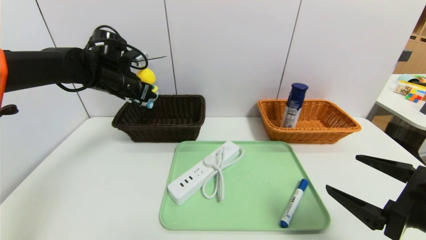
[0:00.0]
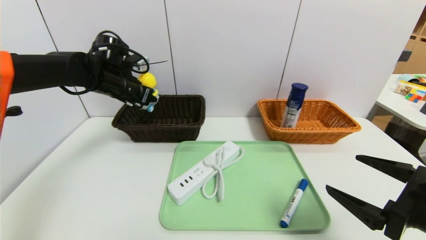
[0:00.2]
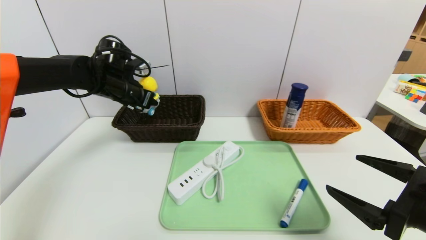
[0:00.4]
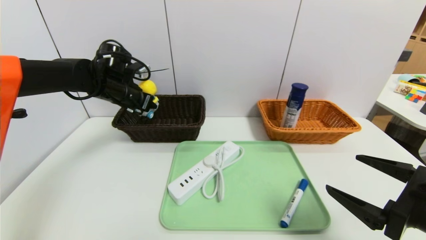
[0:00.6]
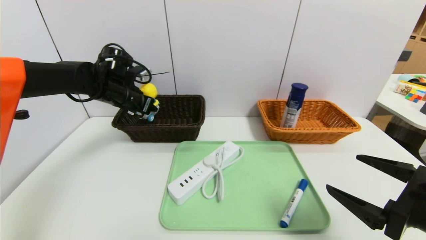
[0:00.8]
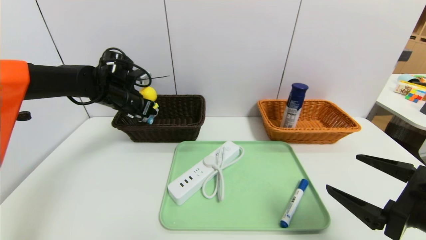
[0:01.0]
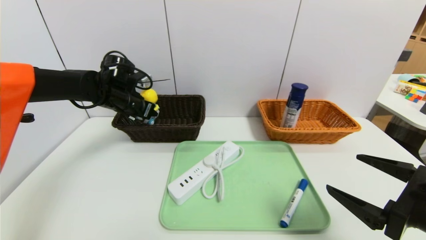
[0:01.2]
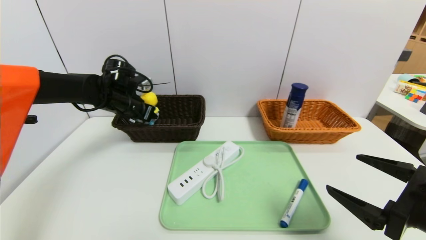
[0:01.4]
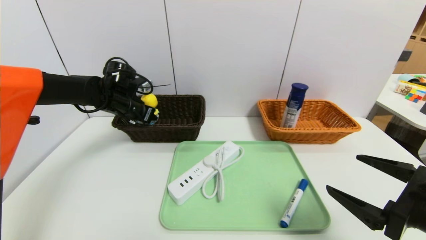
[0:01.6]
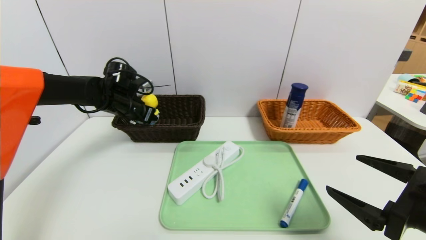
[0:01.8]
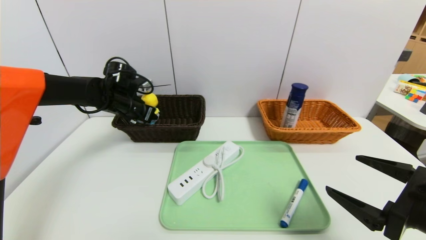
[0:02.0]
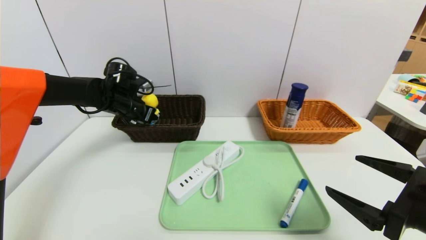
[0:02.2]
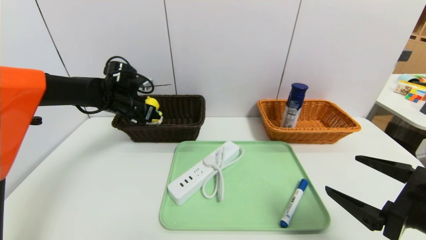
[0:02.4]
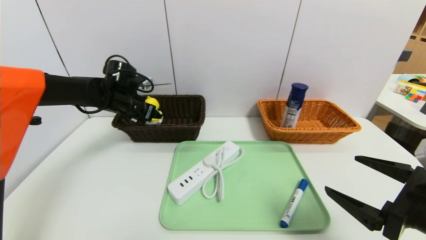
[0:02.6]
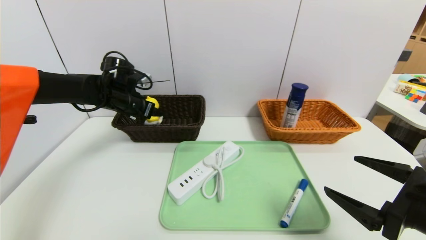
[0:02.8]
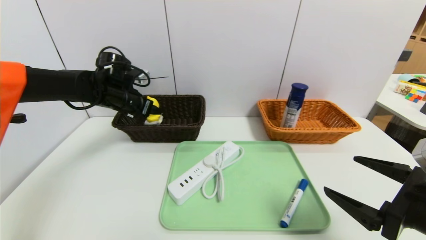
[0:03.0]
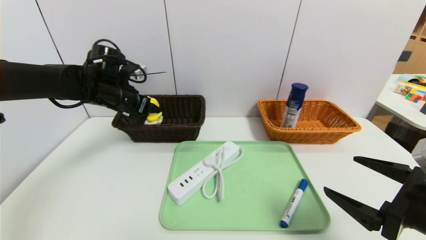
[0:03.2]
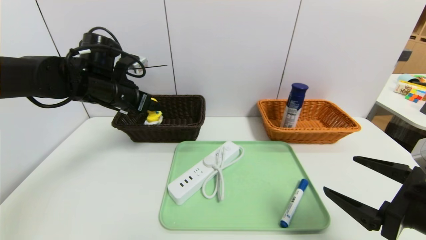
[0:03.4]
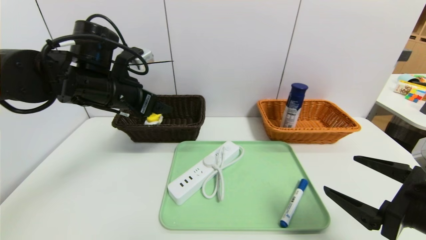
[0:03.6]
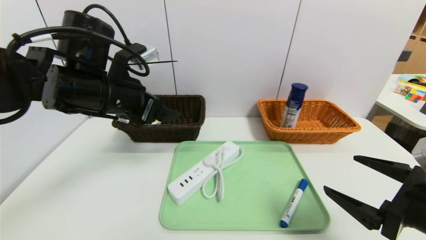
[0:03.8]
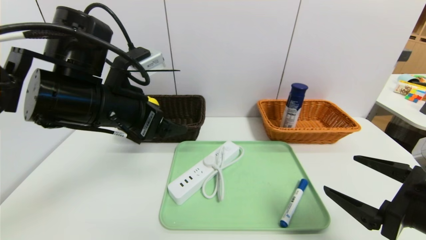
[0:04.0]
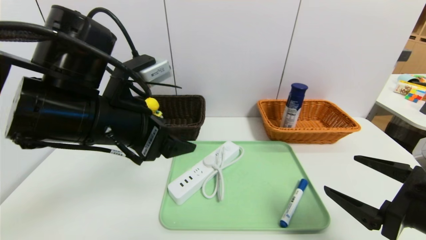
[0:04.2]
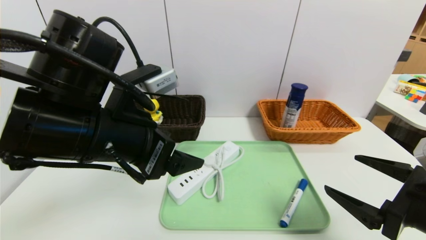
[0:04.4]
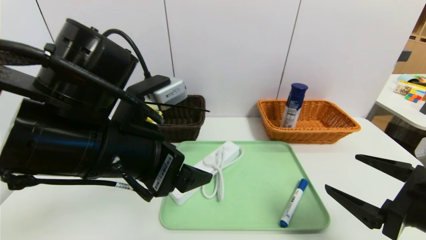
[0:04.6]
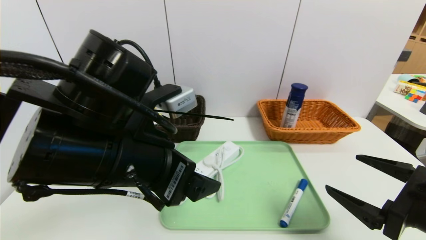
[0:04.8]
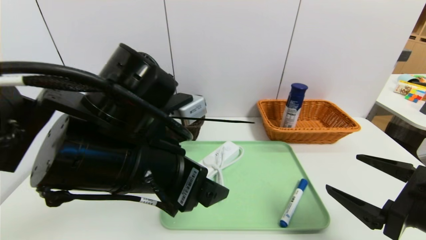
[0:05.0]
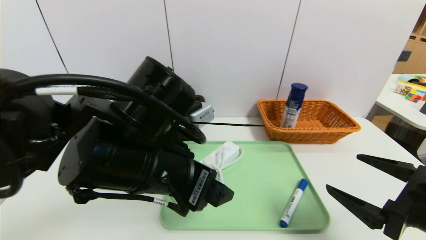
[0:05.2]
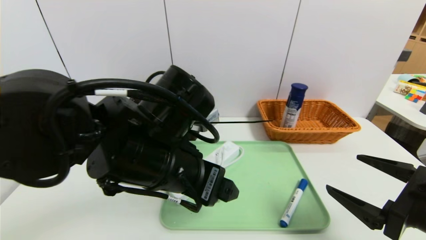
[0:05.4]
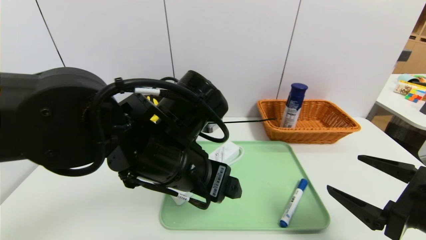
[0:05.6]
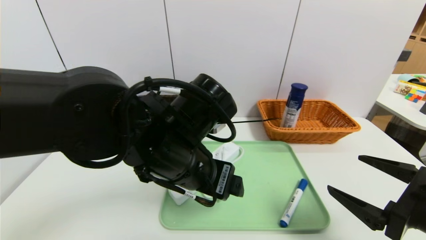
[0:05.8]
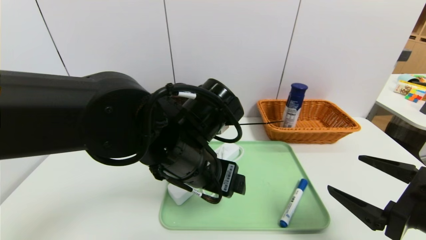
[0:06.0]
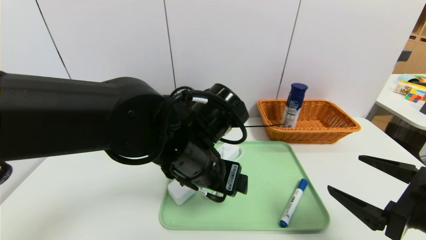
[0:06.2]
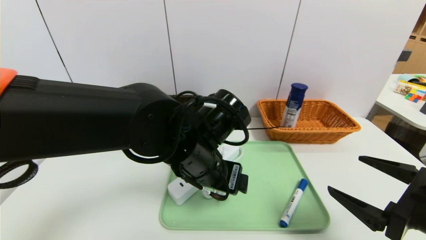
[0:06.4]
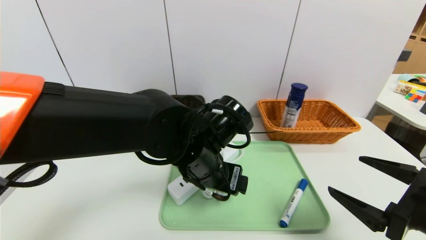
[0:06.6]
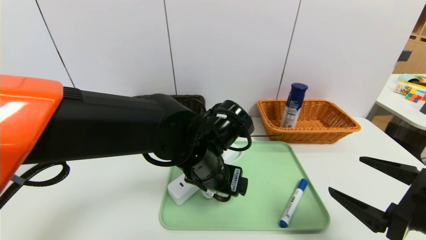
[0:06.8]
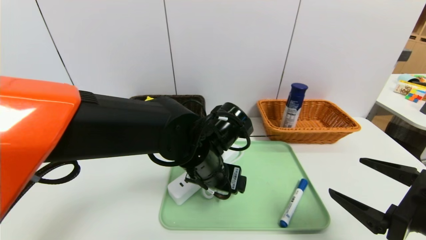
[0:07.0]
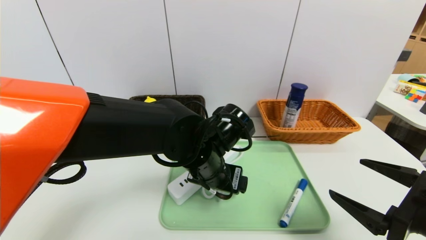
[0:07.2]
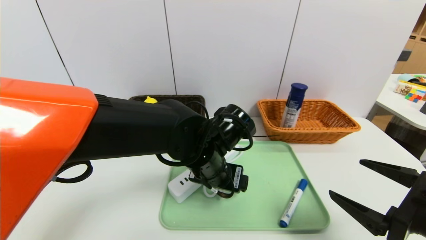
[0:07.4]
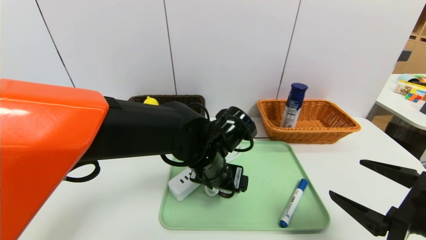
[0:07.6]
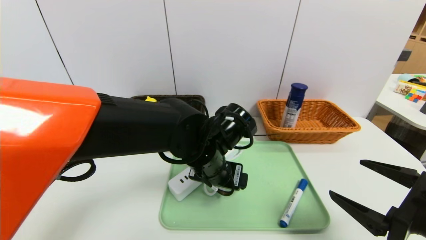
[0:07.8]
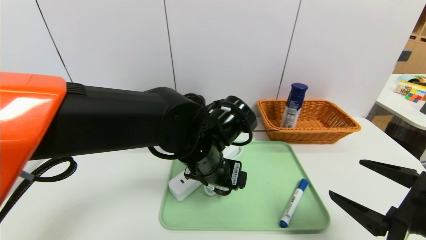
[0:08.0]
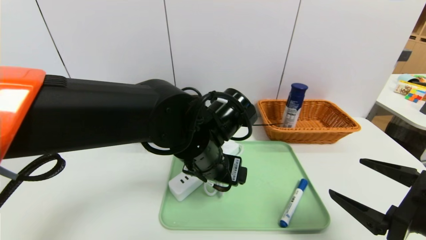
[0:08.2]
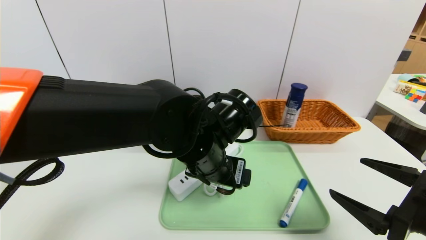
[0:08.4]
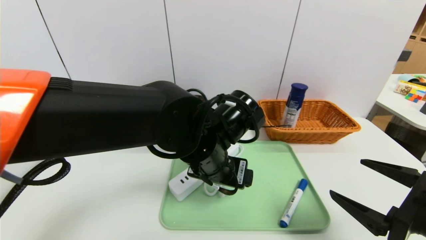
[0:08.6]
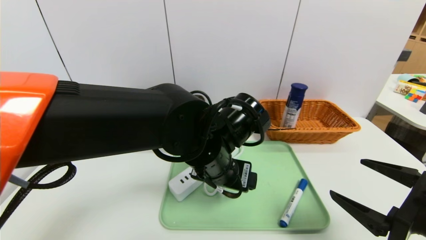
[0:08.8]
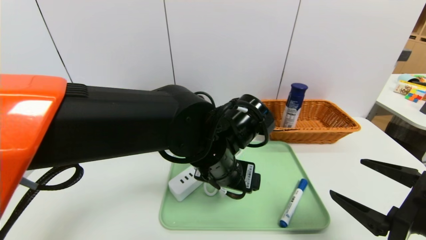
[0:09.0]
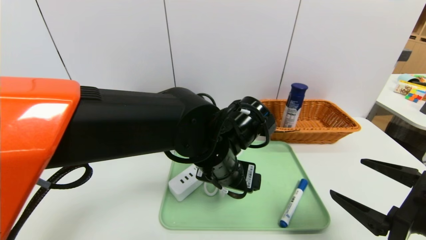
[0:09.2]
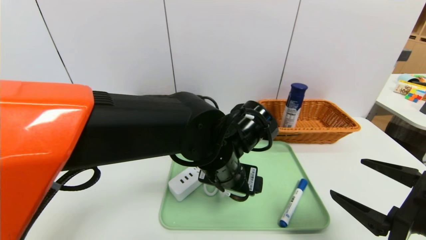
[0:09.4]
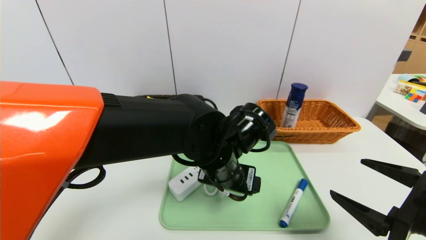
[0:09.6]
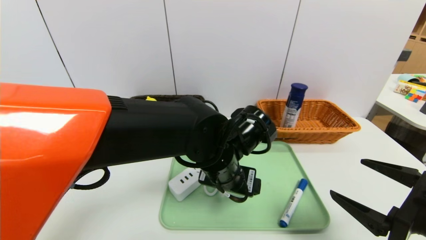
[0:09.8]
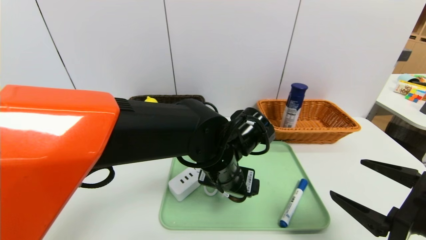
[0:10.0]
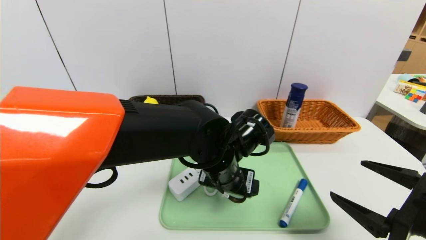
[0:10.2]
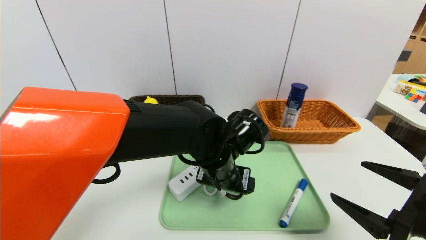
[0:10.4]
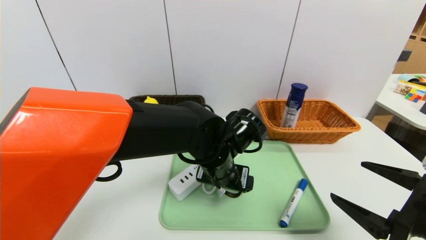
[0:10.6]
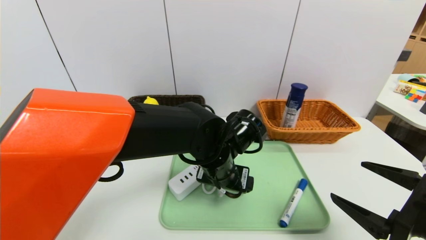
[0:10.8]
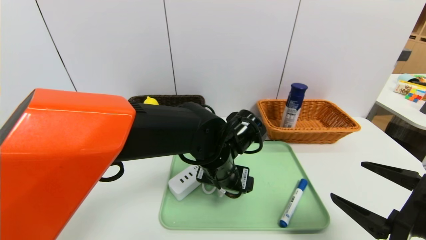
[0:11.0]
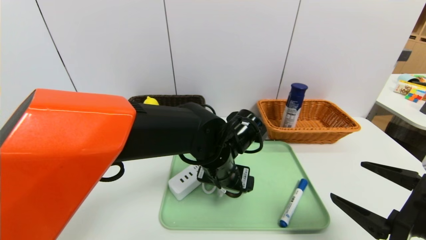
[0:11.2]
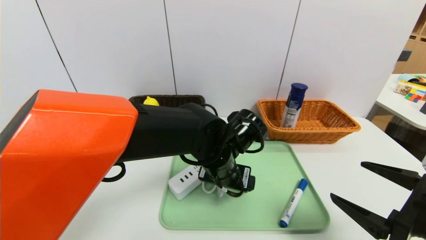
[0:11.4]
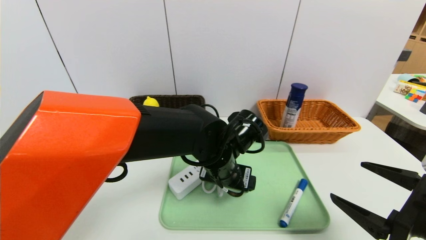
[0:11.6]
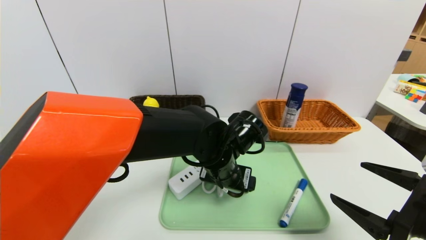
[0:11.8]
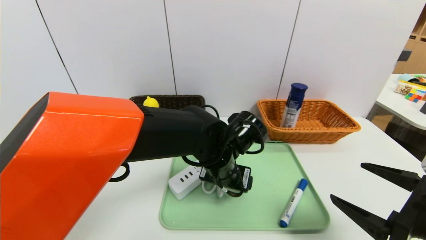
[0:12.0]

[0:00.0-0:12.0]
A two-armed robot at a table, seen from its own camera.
Task of the whole recording: place the food in the right basket with the right gripper, and place the non food items in the left basket with the left gripper.
Step, 0:00.0 to 0:02.2: Grasp the duck toys and put it in the left basket.
0:00.0 to 0:01.6: The left gripper shifts roughly 5 cm downward.
0:01.6 to 0:03.0: The left gripper opens up.
0:03.0 to 0:04.4: The left gripper is displaced backward and to the right by roughly 25 cm.
0:04.4 to 0:06.0: The left gripper shifts about 10 cm to the right and downward.
0:06.0 to 0:07.6: The left gripper shifts roughly 5 cm downward.
0:07.6 to 0:09.0: There are only small adjustments of the grippers.
0:10.4 to 0:12.0: The grippers stay close to where they were, moving slightly.

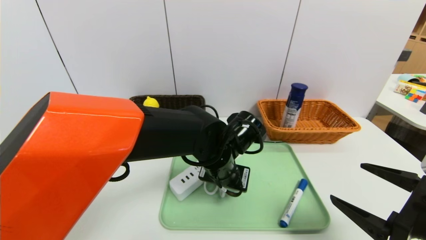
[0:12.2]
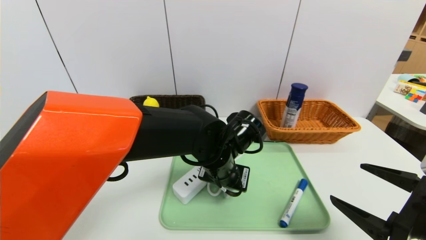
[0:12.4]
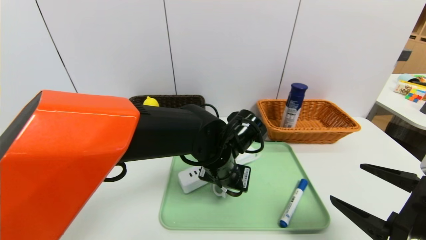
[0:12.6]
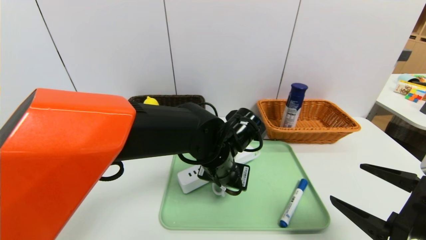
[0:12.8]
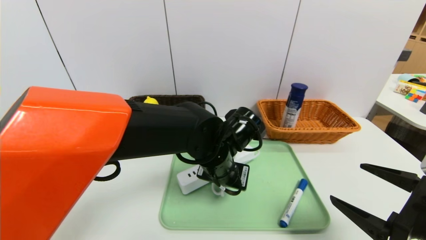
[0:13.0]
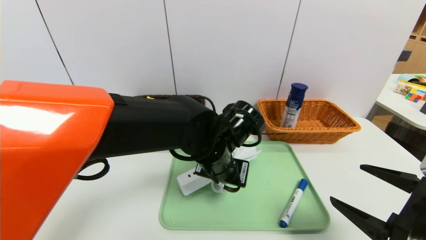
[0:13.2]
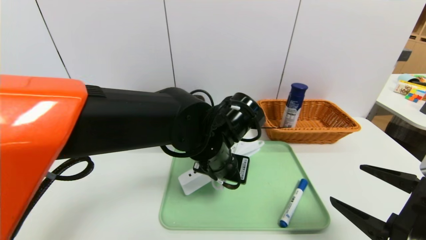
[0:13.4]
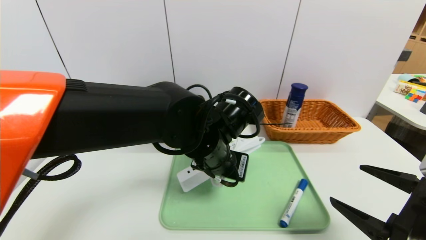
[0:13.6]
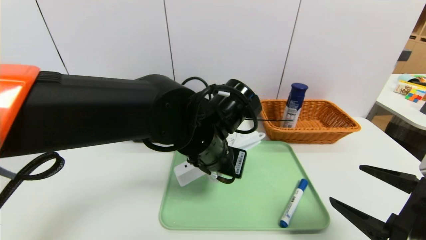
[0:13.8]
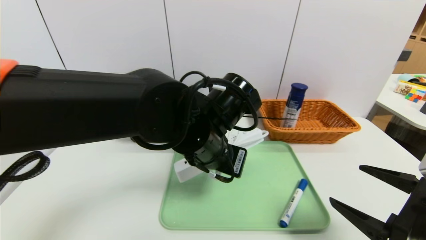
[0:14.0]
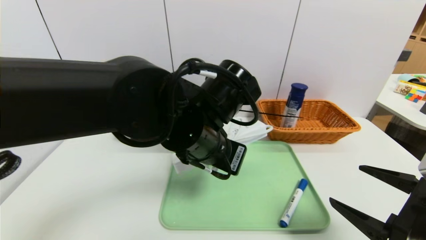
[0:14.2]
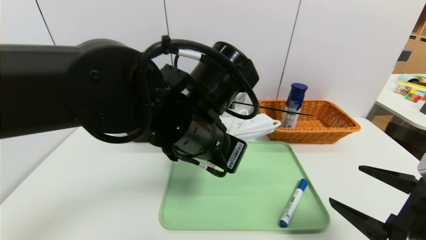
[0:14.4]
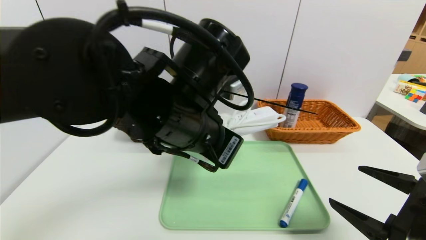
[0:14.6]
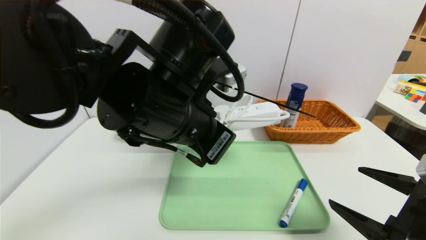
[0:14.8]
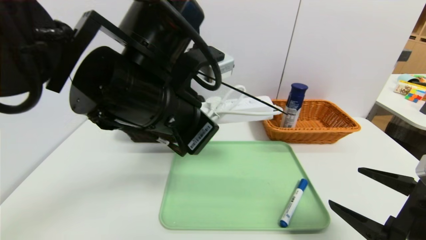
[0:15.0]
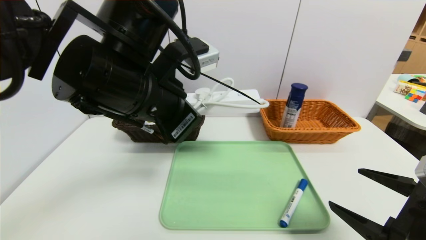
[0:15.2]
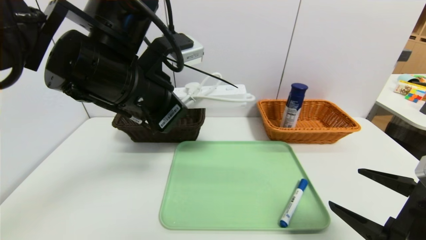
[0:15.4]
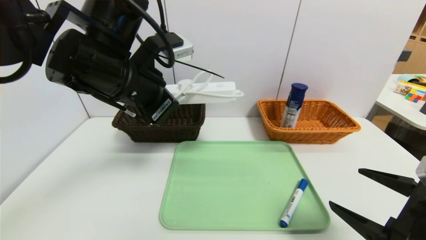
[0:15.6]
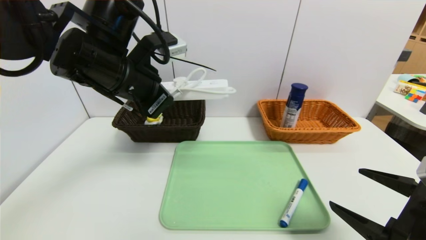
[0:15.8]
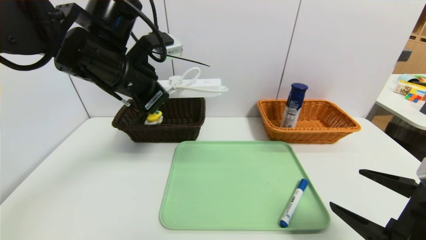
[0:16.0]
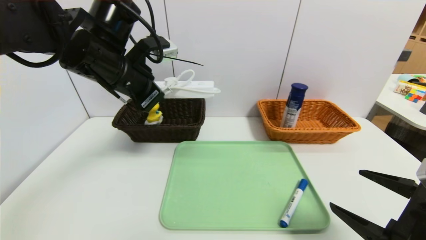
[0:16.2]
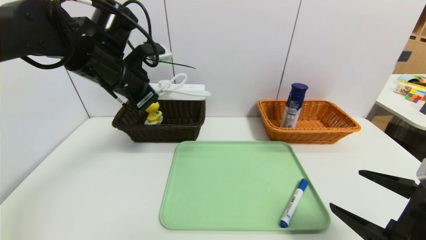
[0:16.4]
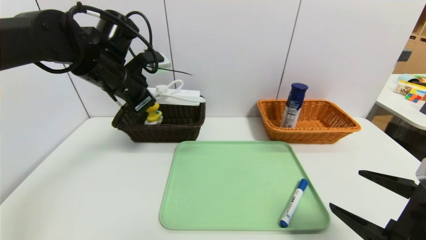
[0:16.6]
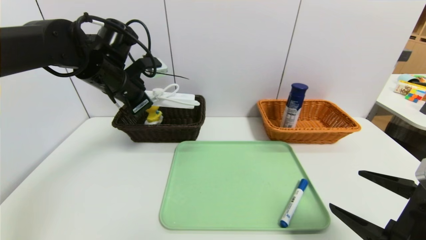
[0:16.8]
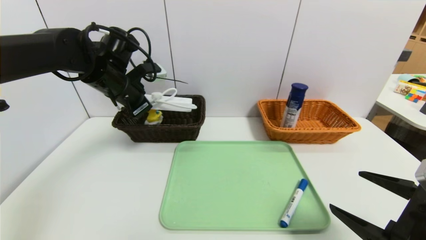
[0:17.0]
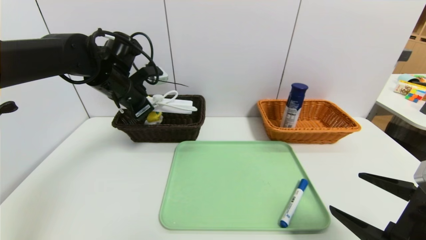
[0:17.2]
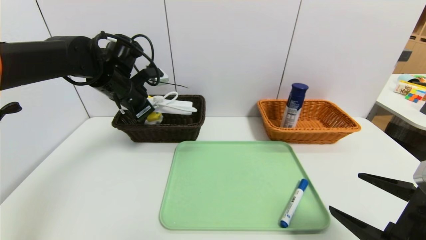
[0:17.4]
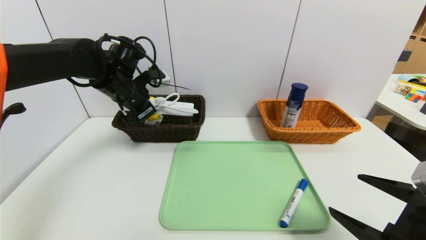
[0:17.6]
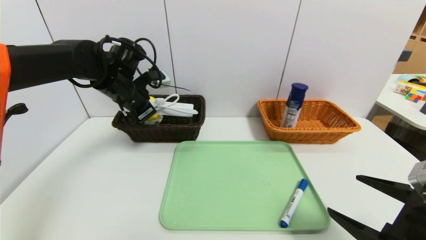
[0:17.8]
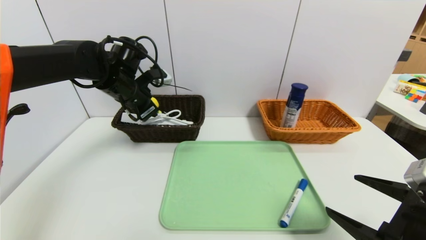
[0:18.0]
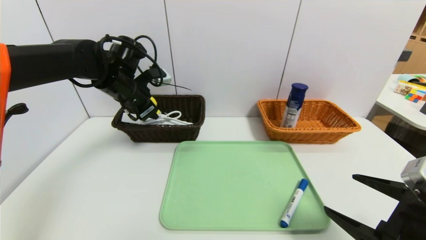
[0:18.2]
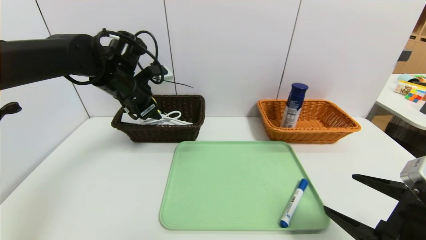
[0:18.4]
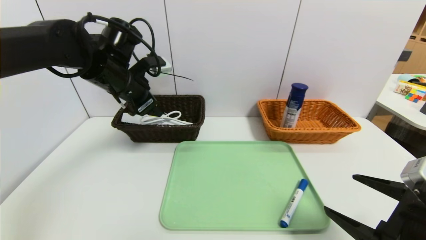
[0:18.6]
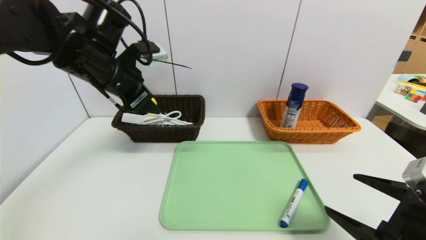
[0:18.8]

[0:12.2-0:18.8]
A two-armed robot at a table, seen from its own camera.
Task of the whole recording: place the food in the right basket with the right gripper, and place the non food items in the left basket with the left gripper.
Step, 0:12.2 to 0:18.4: Grasp the power strip and put it in the left basket.
0:12.2 to 0:13.8: The left gripper is displaced upward by approximately 5 cm, and closes up.
0:13.8 to 0:15.4: The left gripper travels to the left and upward by some 15 cm.
0:15.4 to 0:17.2: The left gripper moves forward, to the left and downward, roughly 20 cm.
0:17.2 to 0:18.8: The left gripper moves backward and upward, about 10 cm, and opens up.
